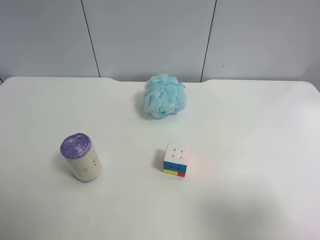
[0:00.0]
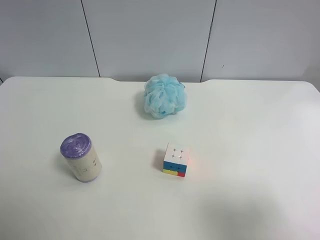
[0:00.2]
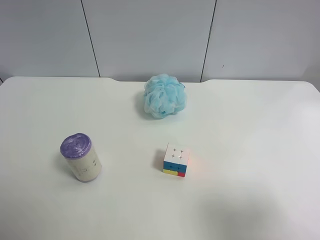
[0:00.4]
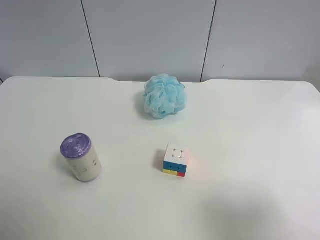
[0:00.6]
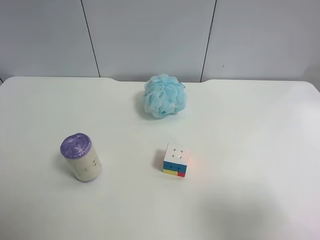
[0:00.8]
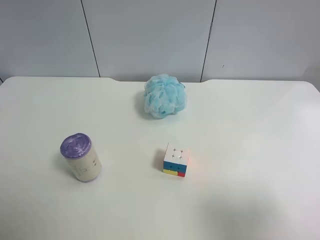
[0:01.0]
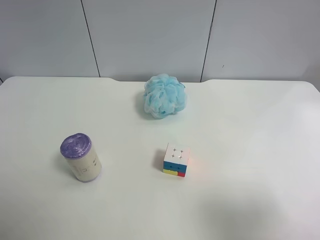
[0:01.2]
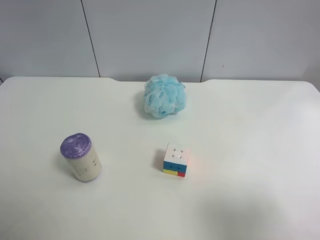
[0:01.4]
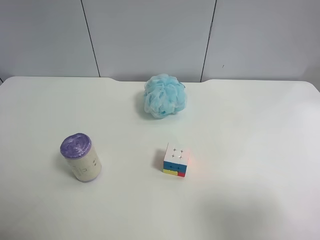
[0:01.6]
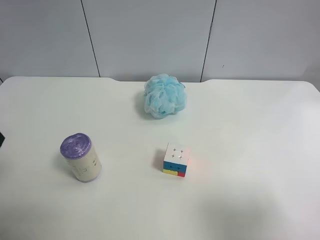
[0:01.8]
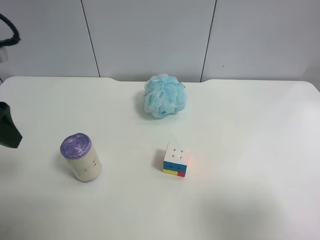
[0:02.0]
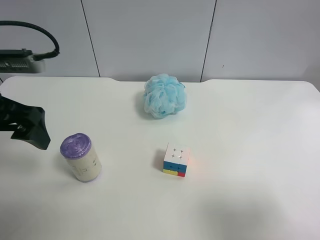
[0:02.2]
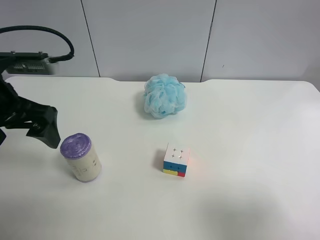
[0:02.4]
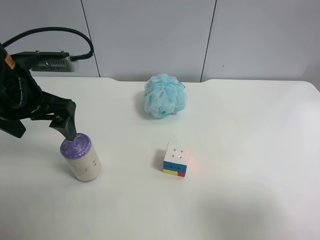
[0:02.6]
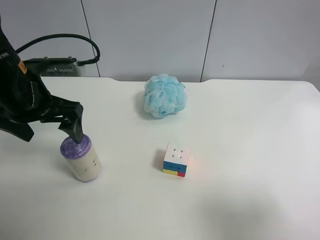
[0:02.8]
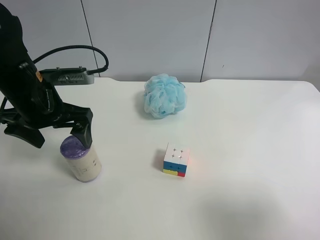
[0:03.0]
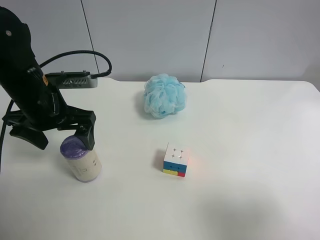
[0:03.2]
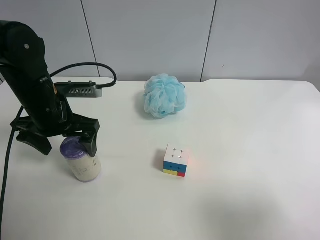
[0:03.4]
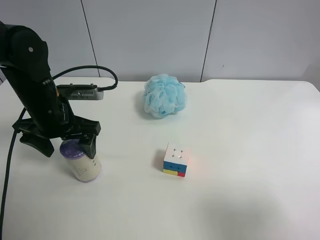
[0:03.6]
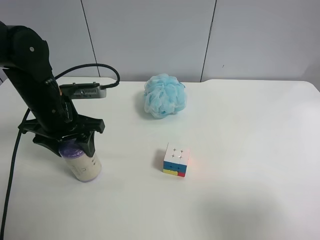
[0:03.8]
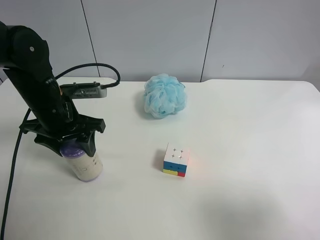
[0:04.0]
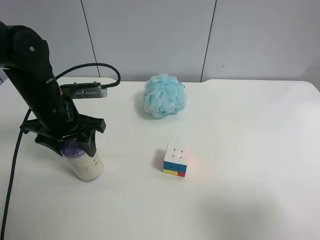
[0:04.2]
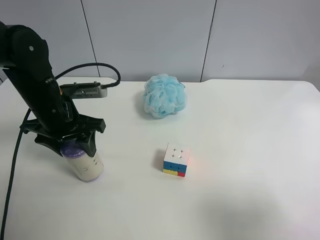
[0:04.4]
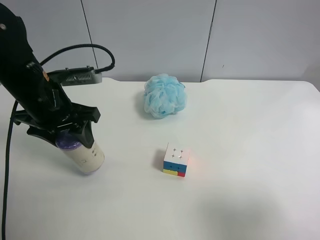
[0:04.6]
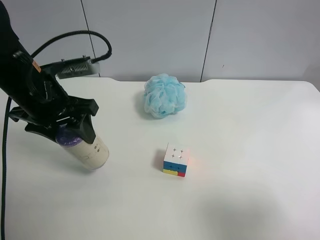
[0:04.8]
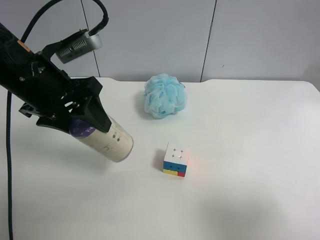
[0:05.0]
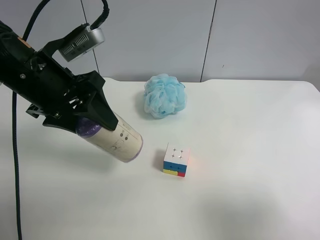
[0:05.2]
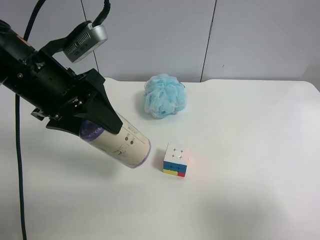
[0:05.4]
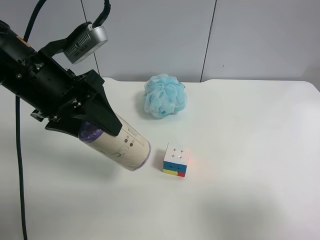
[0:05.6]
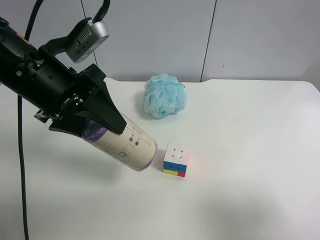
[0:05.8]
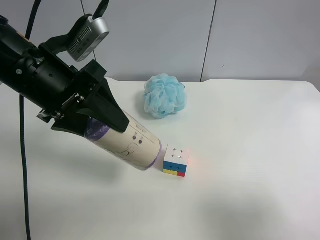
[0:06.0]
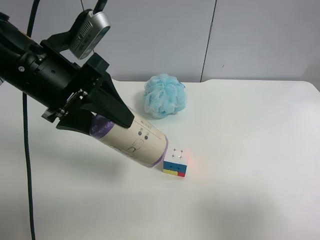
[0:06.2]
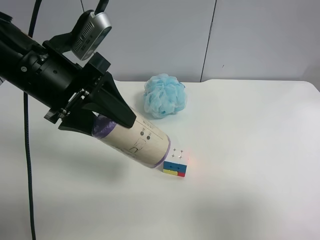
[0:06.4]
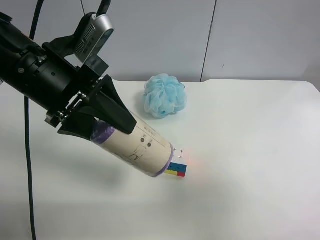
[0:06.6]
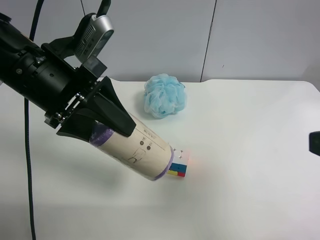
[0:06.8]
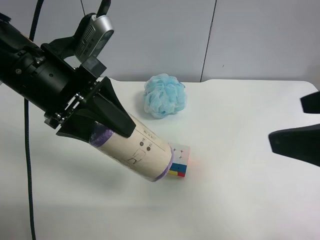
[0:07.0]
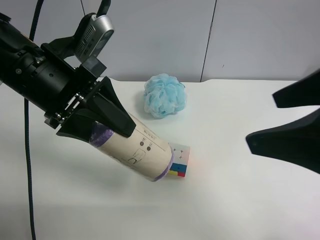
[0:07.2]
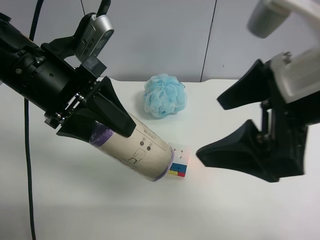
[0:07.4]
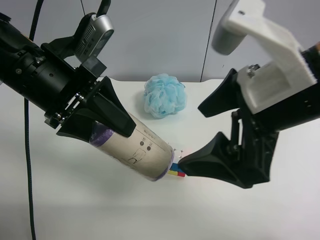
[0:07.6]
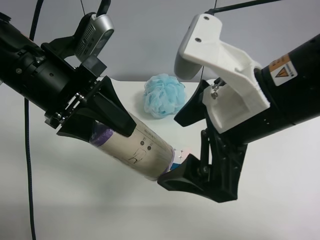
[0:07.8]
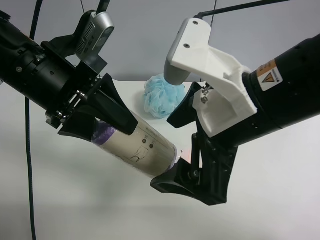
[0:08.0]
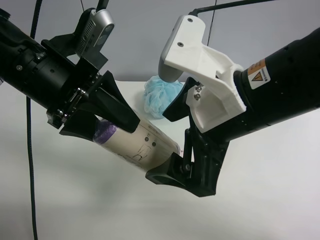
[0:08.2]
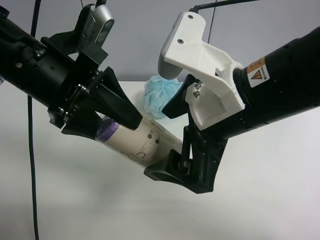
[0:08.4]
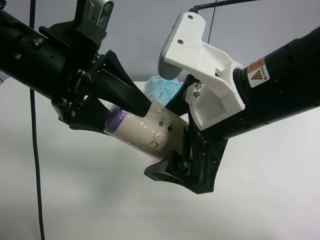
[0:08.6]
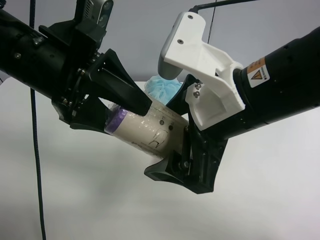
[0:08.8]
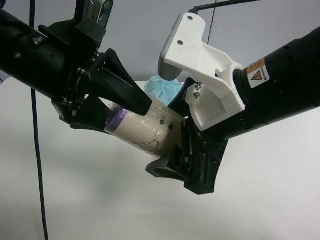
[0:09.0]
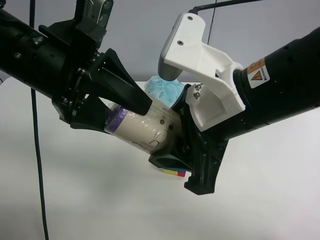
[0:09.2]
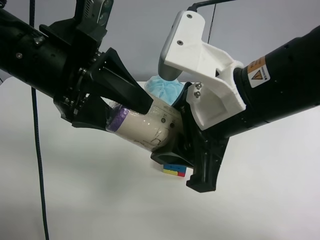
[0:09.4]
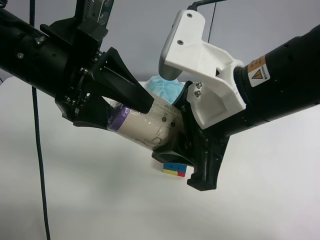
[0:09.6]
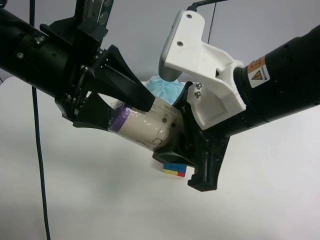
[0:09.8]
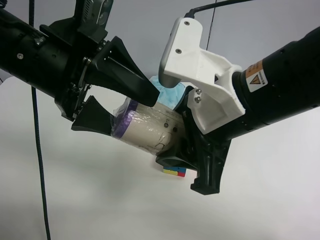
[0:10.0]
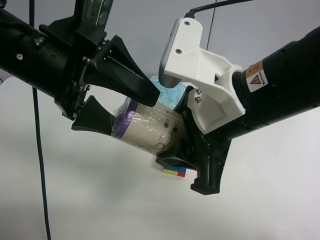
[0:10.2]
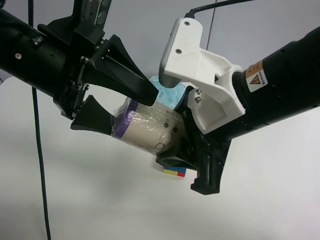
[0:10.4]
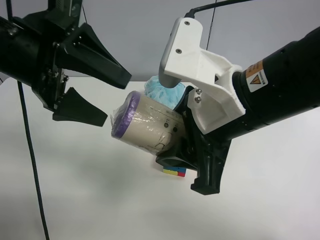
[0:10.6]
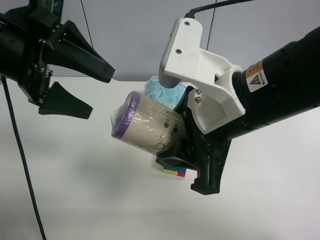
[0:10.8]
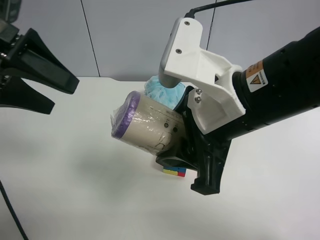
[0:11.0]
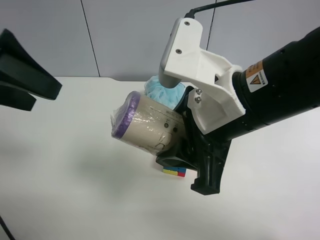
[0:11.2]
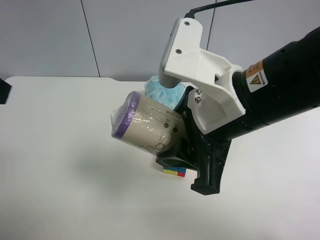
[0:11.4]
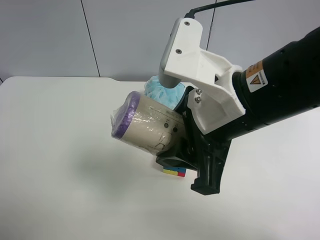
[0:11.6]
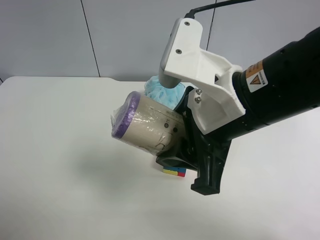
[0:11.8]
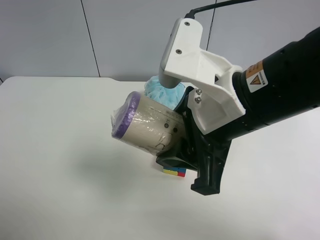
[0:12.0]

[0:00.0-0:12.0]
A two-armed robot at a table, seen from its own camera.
Task of the whole recording: use the left gripper to pick up the item and transfer it from the left gripper to the right gripper.
0:01.6 to 0:03.0: The left gripper goes some 20 cm forward, to the right and downward.
0:03.0 to 0:04.4: The left gripper closes up.
0:04.4 to 0:06.0: The left gripper goes about 10 cm upward.
0:06.0 to 0:07.6: The right gripper moves to the left and forward, some 20 cm.
0:09.0 to 0:10.4: The right gripper closes. Meanwhile the left gripper opens.
0:10.4 to 0:12.0: The left gripper travels backward and to the left by about 25 cm.

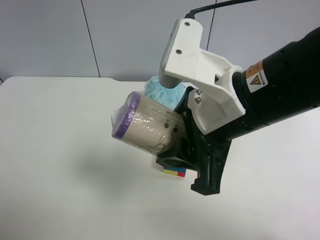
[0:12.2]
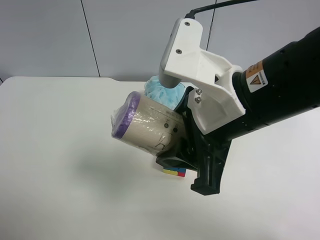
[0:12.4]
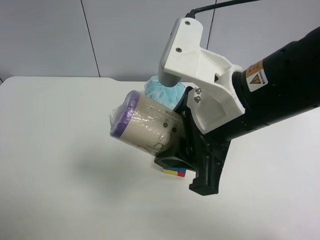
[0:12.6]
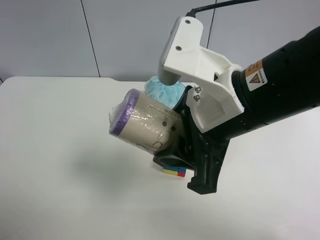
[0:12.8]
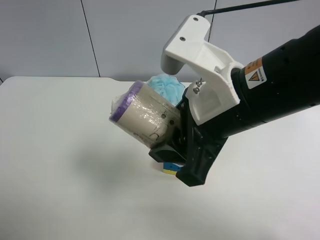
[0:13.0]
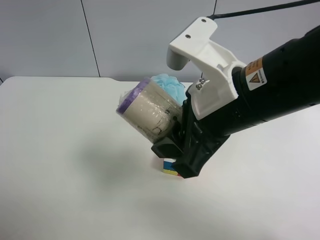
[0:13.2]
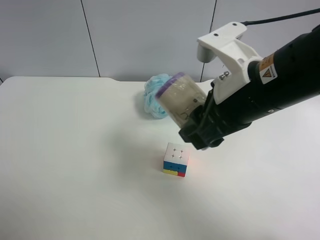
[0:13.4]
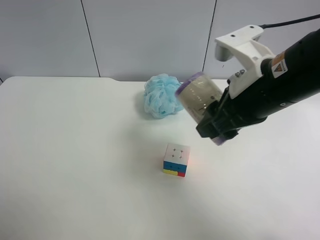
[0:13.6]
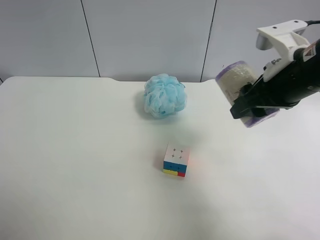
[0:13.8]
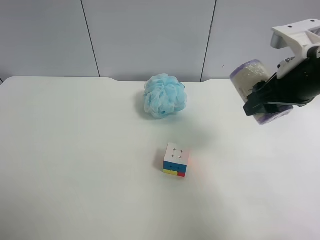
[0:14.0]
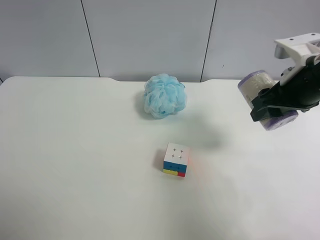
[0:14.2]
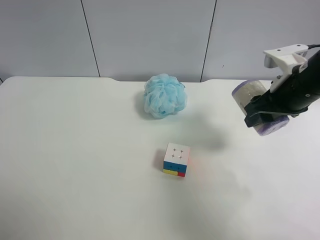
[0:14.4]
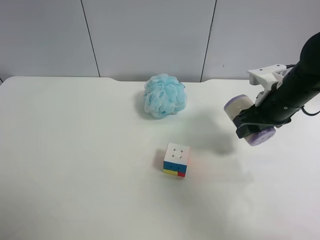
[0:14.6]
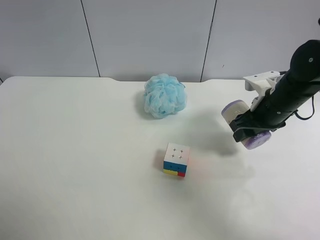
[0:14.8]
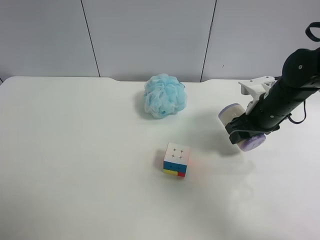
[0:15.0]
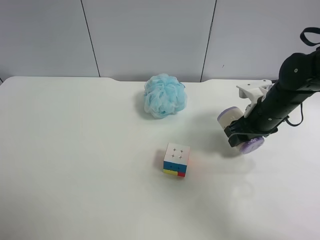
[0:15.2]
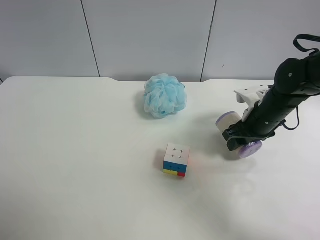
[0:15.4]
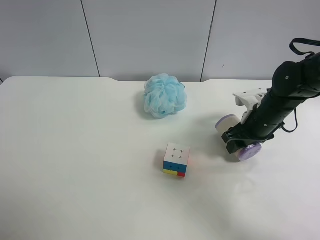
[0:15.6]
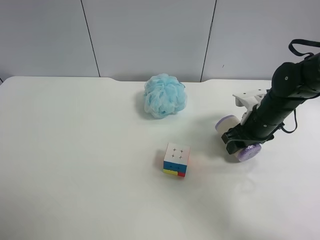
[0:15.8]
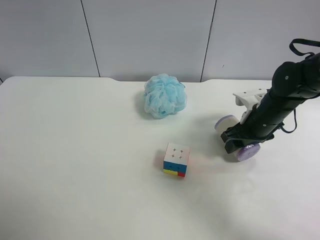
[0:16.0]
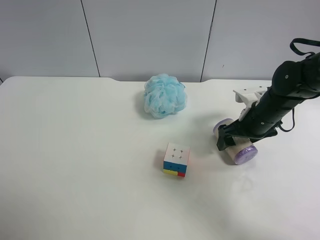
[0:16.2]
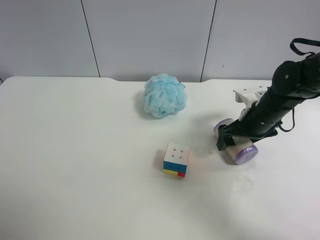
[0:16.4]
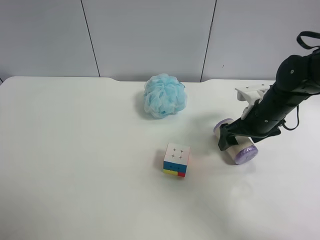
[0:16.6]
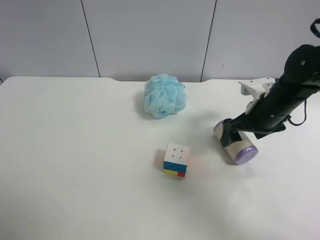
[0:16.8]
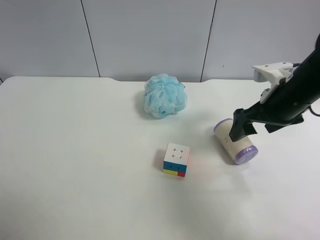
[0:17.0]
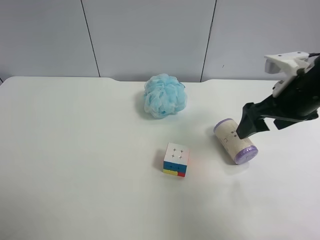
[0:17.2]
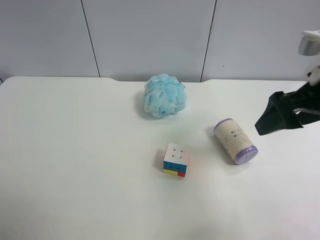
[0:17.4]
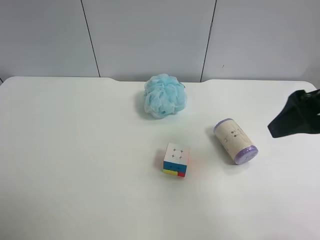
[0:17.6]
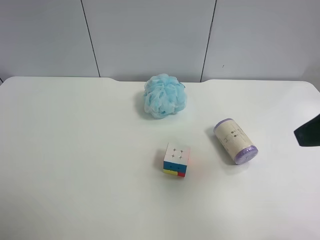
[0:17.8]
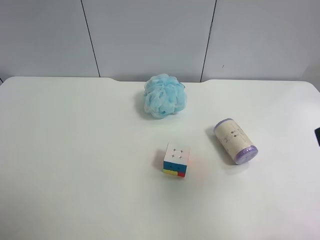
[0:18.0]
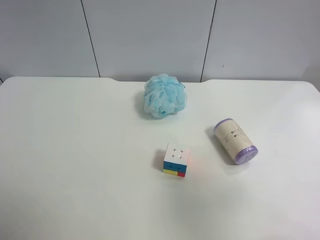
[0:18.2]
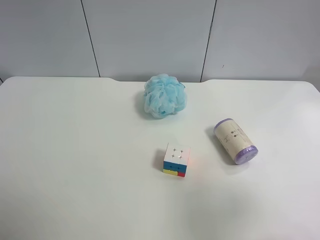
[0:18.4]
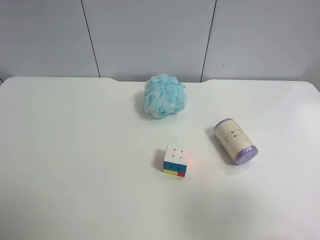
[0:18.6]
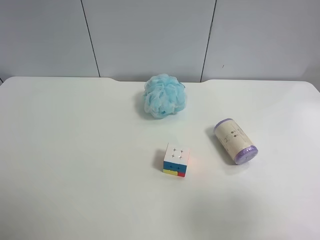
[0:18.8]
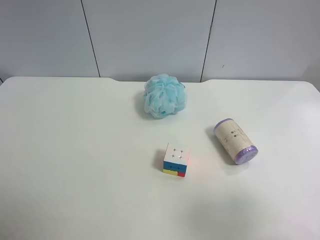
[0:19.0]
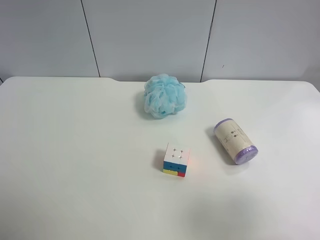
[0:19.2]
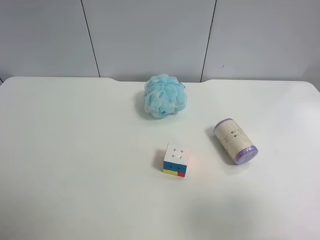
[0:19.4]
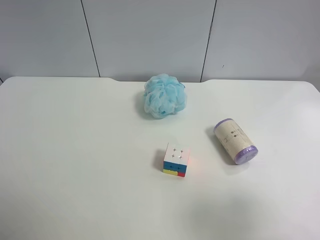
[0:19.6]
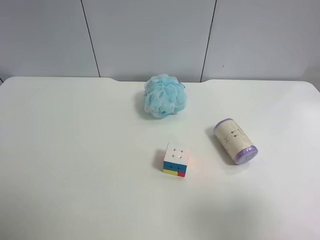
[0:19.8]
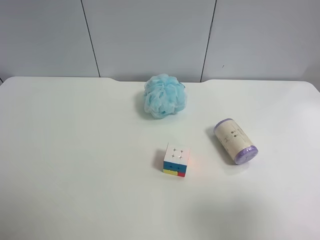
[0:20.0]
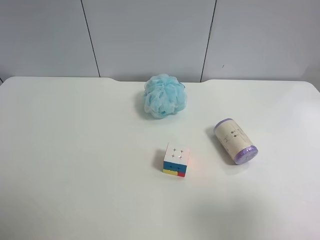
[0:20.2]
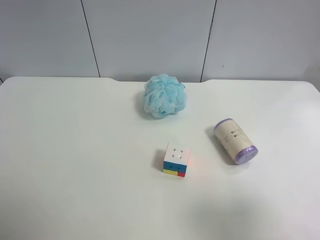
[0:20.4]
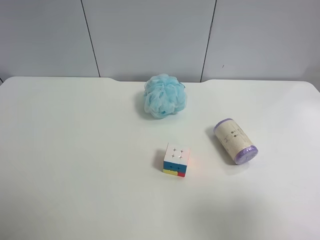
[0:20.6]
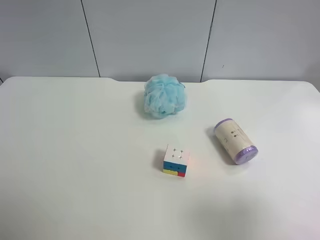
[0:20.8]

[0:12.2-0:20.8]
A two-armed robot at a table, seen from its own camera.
Task of the whole recording: use the left gripper to pick up the item and transfer it from the left gripper to the right gripper.
0:12.2 to 0:13.6: The right gripper is displaced to the right and forward by some 10 cm.
0:13.6 to 0:15.0: The right gripper moves downward, forward and to the right, about 20 cm.
0:15.0 to 0:16.6: The right gripper opens up.
0:16.6 to 0:18.0: The right gripper moves backward and upward, some 30 cm.
0:18.0 to 0:19.4: The right gripper moves backward and downward, some 10 cm.

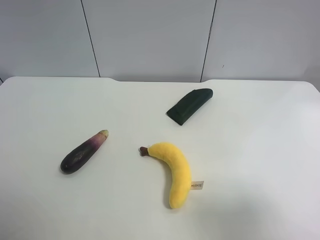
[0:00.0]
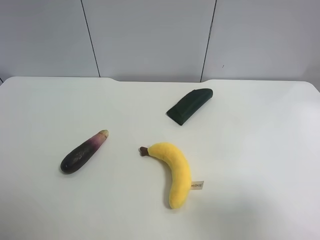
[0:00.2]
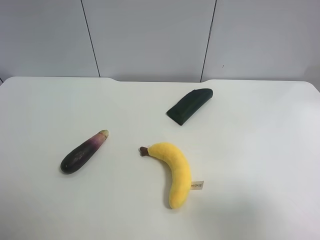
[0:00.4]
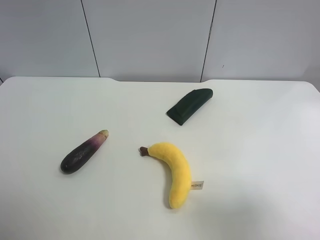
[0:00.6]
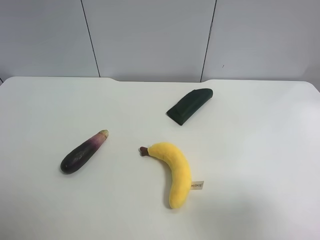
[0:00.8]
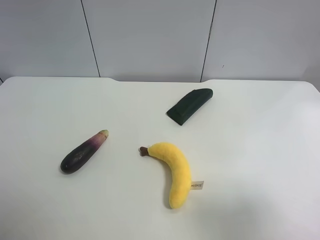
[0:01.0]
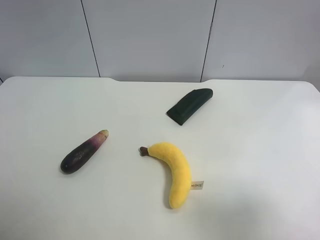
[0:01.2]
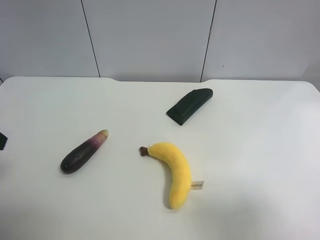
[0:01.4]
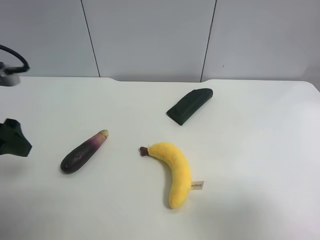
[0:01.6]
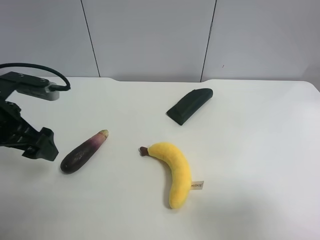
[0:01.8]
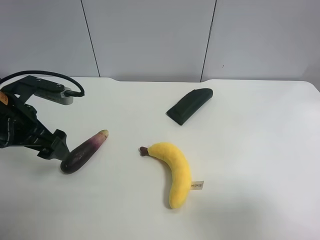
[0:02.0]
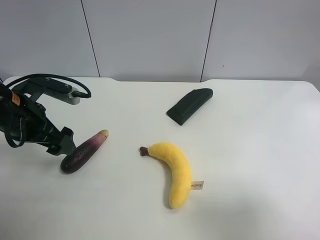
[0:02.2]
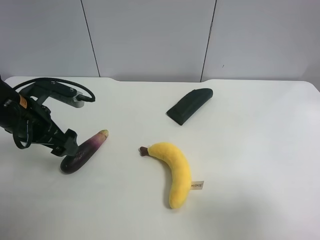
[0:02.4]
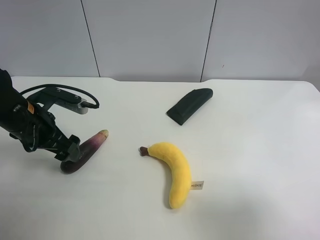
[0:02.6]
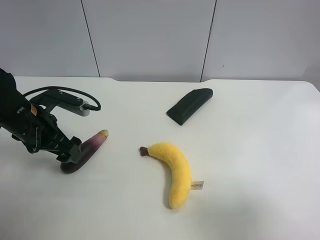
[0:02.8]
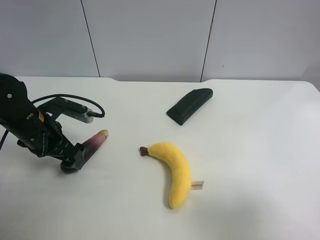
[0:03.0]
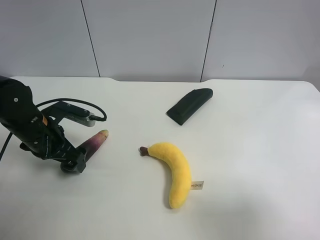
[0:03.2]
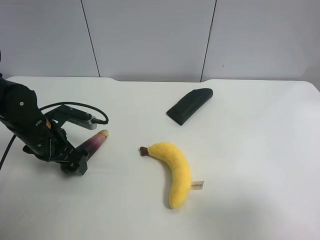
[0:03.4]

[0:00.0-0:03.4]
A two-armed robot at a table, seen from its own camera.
Task of the whole recording: use the left gripper to pick up the item and transfer it from the left gripper to the right gripper.
0:00.0 to 0:01.6: The left gripper is displaced forward by roughly 20 cm.
0:01.6 to 0:03.4: The left gripper heads downward and forward, covering about 15 cm.
